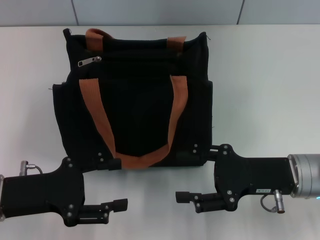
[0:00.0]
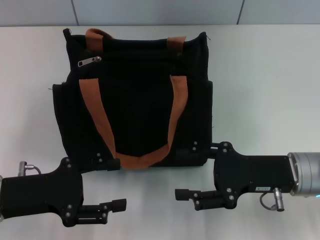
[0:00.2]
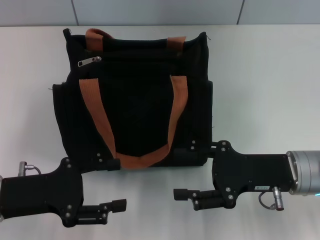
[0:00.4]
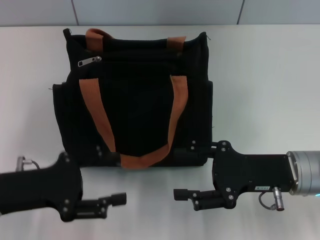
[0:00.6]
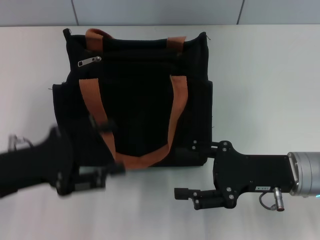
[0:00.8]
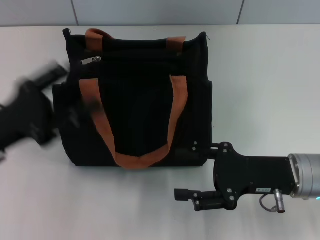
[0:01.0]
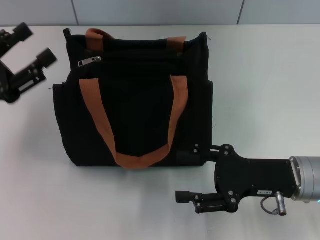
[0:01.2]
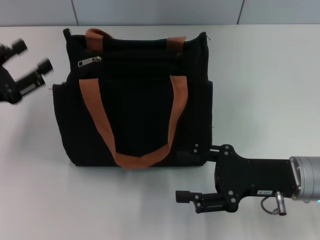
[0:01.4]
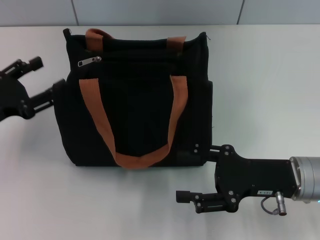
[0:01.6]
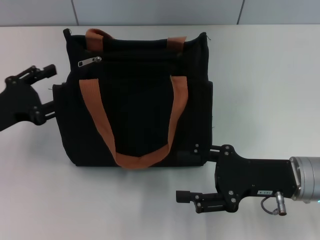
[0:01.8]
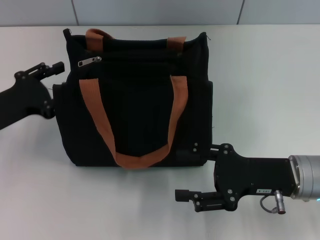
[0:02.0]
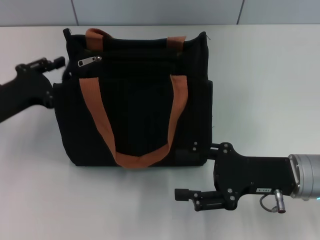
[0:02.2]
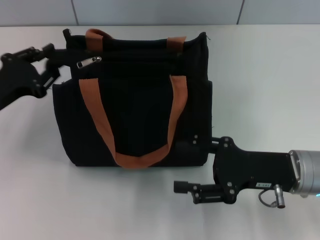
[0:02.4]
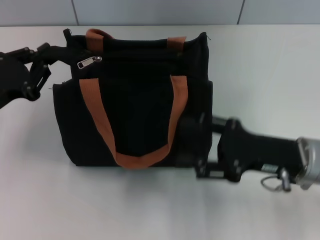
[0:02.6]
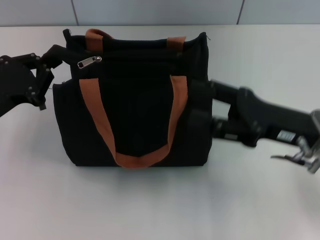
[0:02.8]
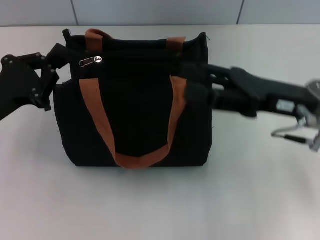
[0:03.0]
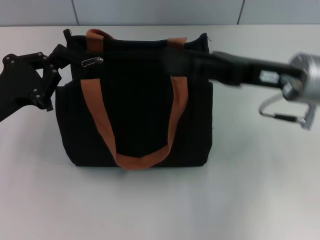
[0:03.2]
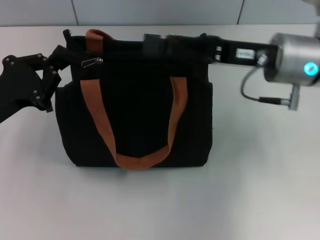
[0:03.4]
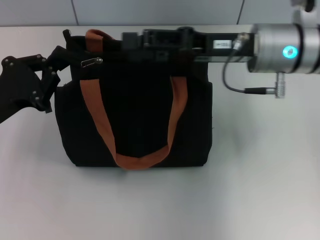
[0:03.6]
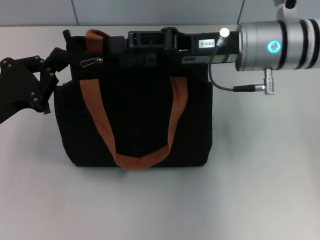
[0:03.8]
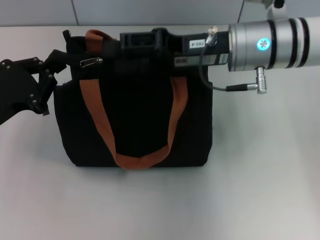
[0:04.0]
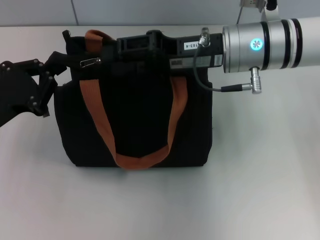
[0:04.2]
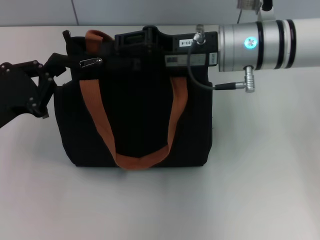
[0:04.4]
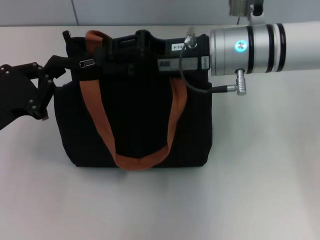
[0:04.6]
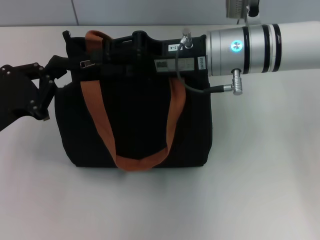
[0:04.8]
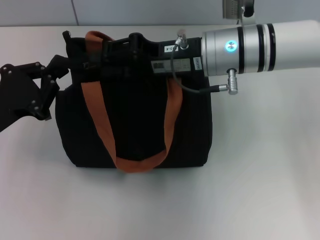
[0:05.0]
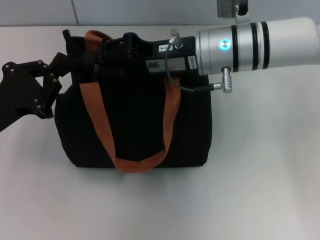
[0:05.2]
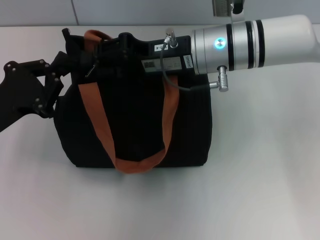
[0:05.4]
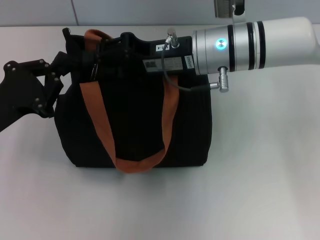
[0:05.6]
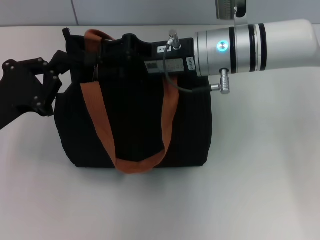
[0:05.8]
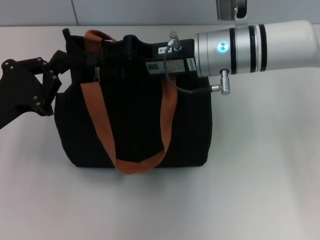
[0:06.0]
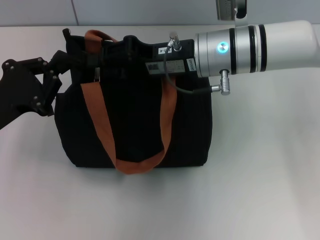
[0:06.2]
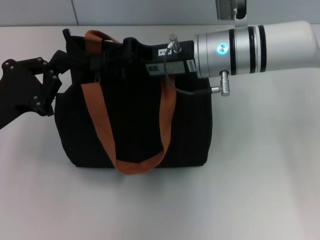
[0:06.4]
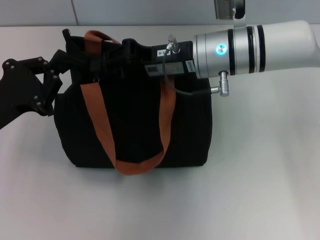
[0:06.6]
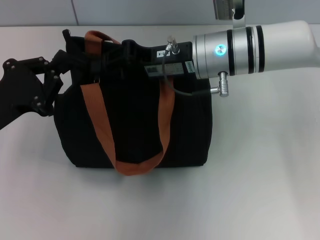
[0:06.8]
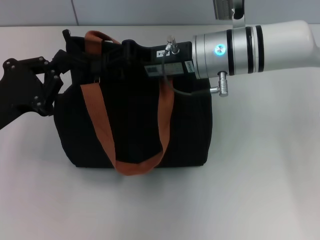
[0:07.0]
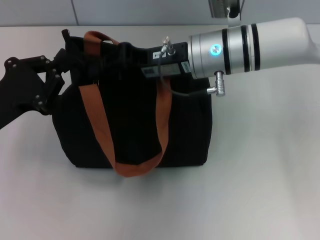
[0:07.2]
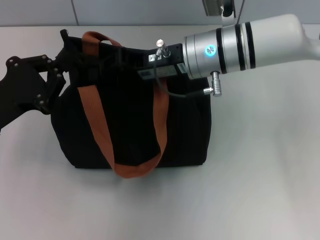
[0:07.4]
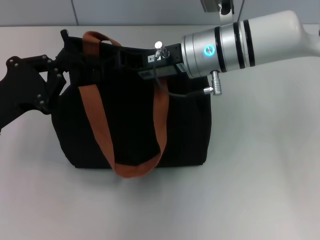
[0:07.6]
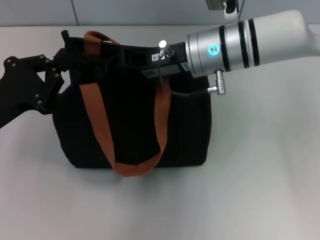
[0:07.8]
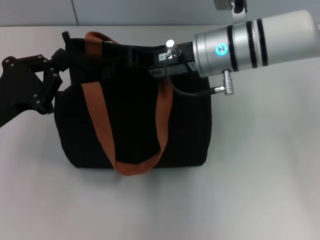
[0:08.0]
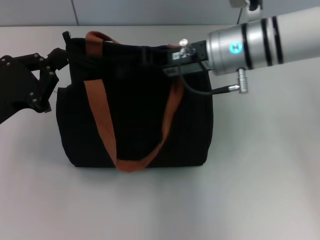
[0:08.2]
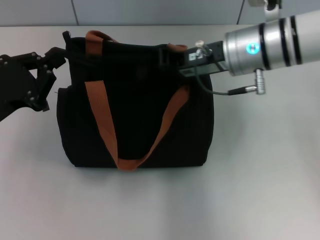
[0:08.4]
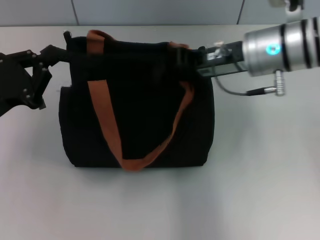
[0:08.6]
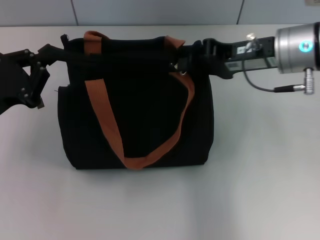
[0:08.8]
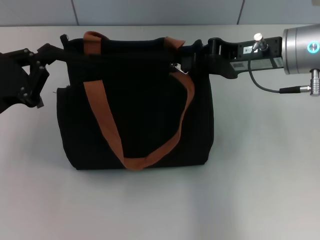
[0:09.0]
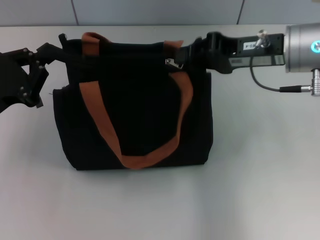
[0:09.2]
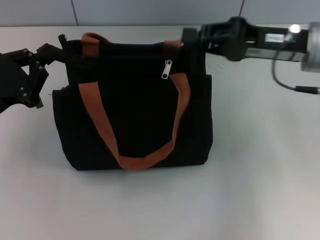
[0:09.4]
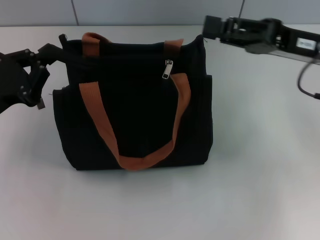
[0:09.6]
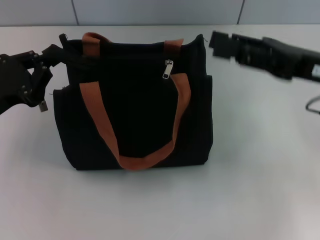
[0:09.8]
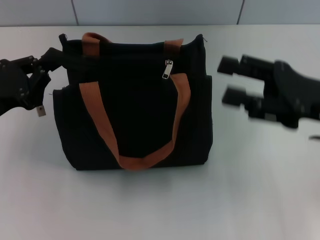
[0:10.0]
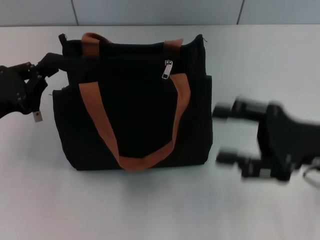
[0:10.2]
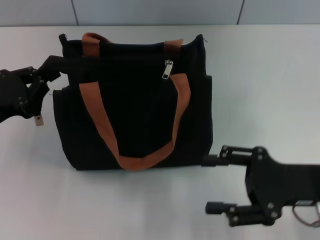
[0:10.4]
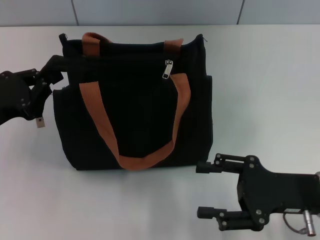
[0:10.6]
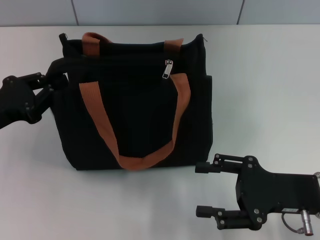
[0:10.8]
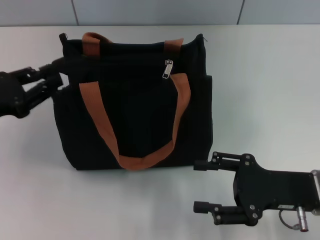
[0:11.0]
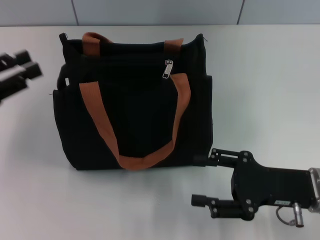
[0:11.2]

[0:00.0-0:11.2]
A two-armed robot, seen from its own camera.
Step, 0:00.0 to 0:09.6: Pull up the zipper with your right hand.
Step, 0:09.8 to 0:11.0: Grab the zipper with your left hand.
0:00.0 to 0:01.6: The left gripper shifts approximately 10 cm forward and to the left.
0:01.6 to 0:03.2: The left gripper closes up. The right gripper shifts about 10 cm upward and forward.
0:03.2 to 0:04.8: The right gripper goes some 10 cm to the left and forward, and closes its fingers.
0:04.8 to 0:06.4: There are only small adjustments of the grippers.
0:06.4 to 0:08.0: The right gripper closes up.
0:08.0 to 0:09.6: The right gripper is displaced to the right by roughly 15 cm.
0:09.6 to 0:11.2: The left gripper shifts by some 5 cm, and opens, while the right gripper travels downward and backward by approximately 15 cm, and opens.

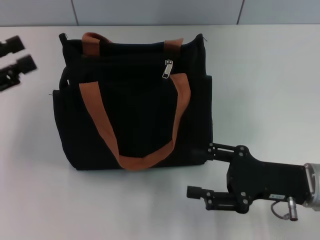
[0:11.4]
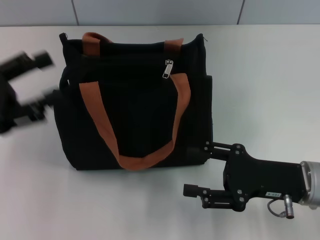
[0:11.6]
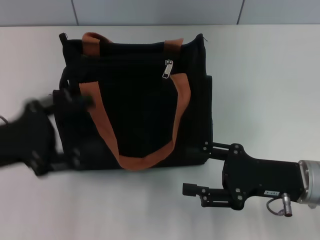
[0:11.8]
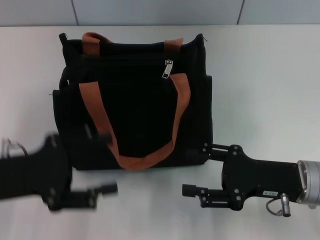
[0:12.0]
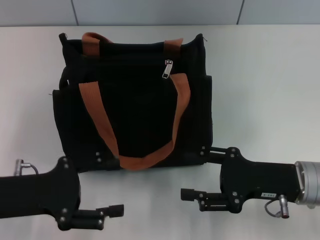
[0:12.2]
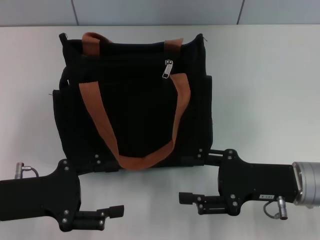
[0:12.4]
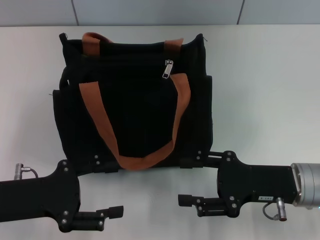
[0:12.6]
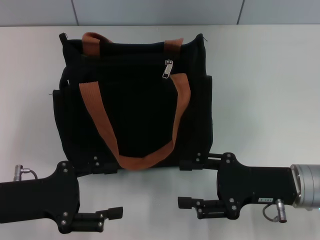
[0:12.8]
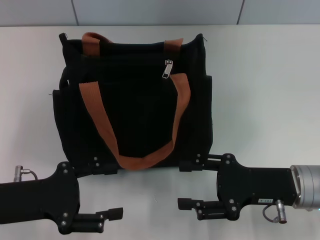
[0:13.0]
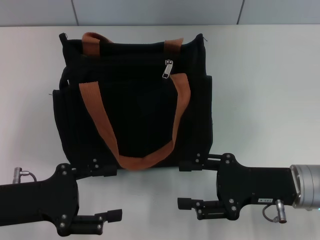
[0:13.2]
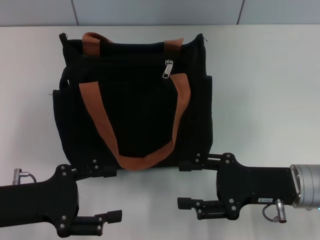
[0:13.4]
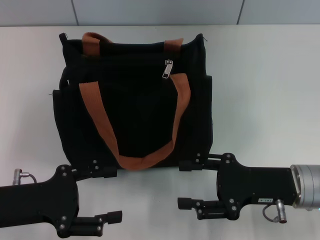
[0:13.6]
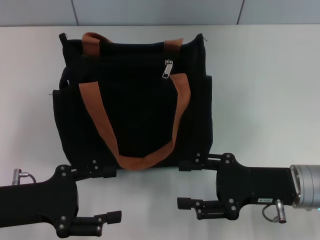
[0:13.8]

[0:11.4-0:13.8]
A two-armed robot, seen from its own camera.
0:11.4 to 0:12.6: The left gripper is displaced to the right, downward and backward by about 10 cm, and opens.
0:12.6 to 0:13.8: Neither gripper changes place.

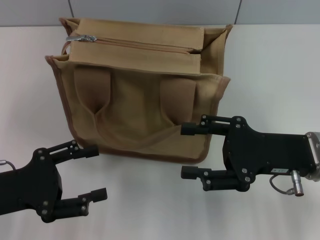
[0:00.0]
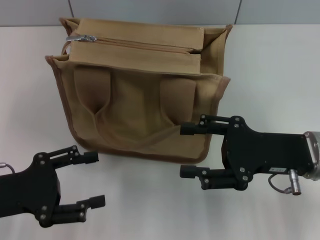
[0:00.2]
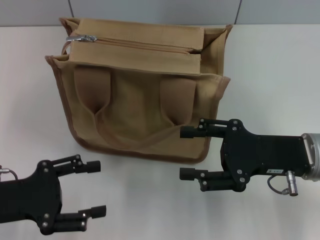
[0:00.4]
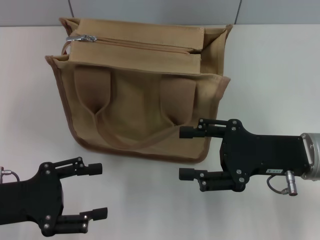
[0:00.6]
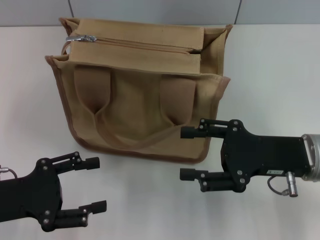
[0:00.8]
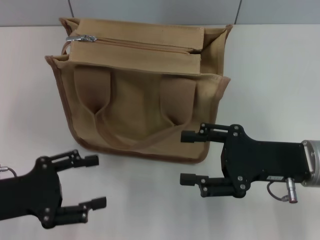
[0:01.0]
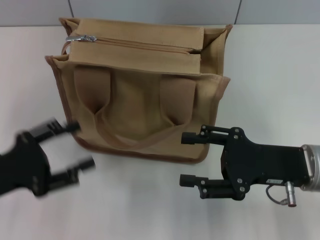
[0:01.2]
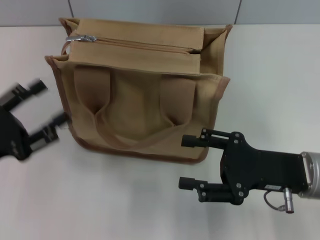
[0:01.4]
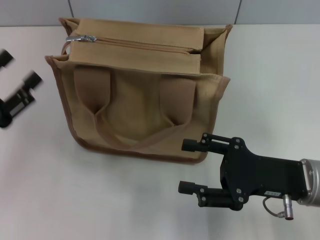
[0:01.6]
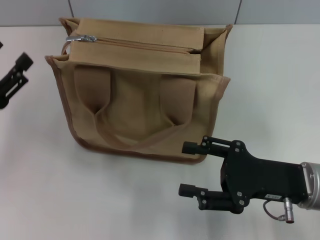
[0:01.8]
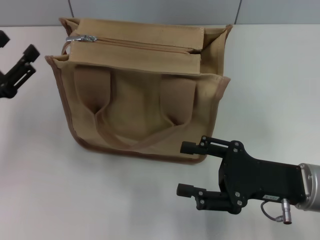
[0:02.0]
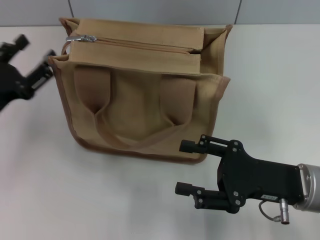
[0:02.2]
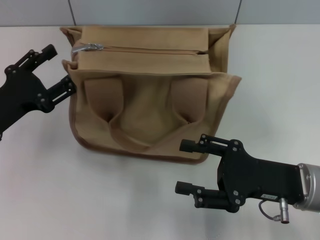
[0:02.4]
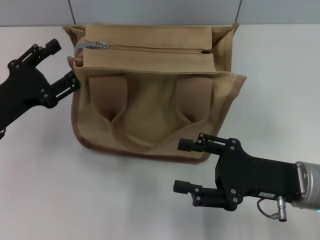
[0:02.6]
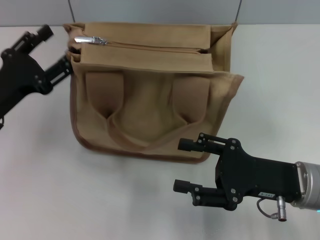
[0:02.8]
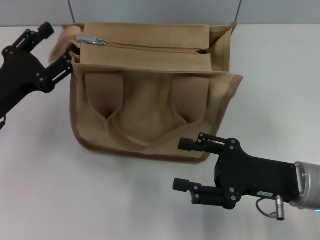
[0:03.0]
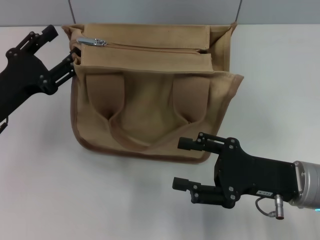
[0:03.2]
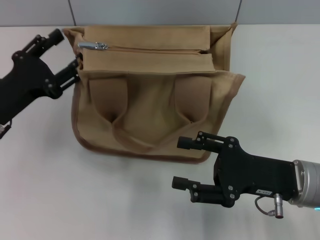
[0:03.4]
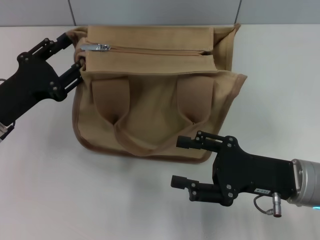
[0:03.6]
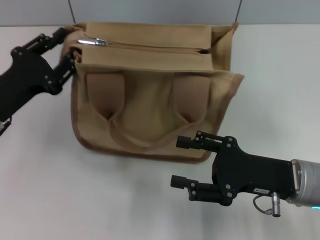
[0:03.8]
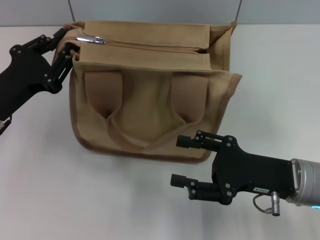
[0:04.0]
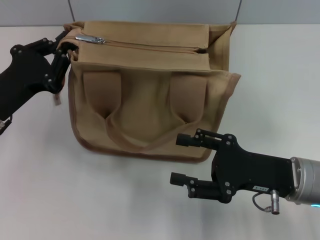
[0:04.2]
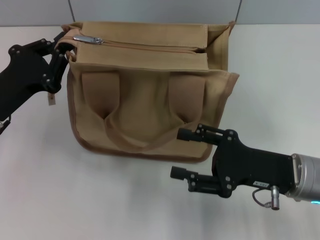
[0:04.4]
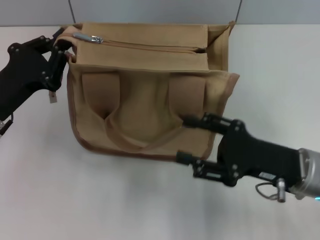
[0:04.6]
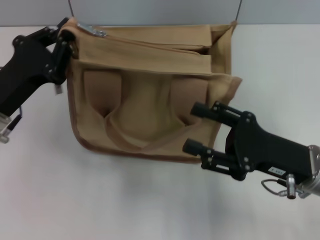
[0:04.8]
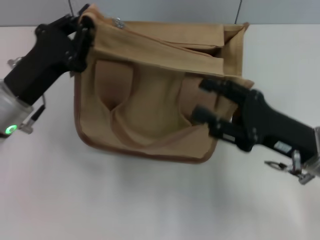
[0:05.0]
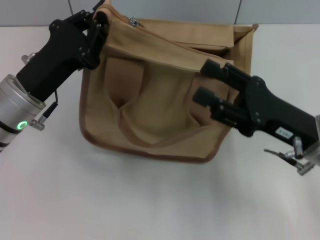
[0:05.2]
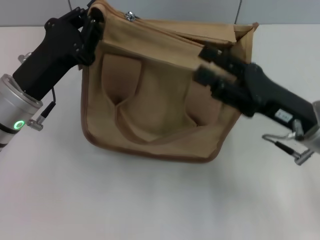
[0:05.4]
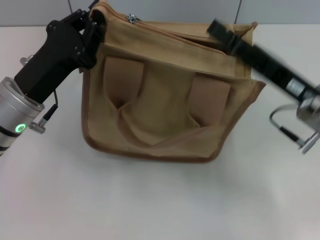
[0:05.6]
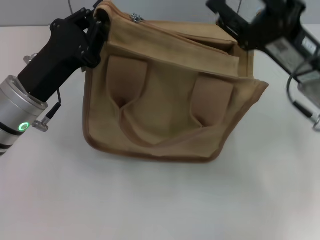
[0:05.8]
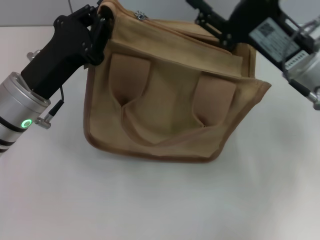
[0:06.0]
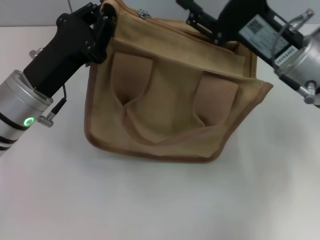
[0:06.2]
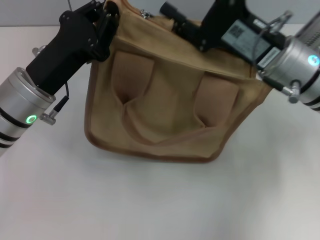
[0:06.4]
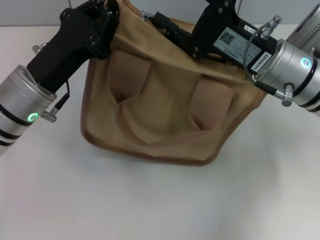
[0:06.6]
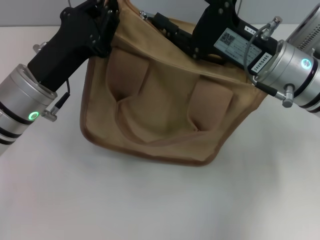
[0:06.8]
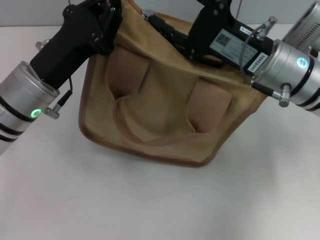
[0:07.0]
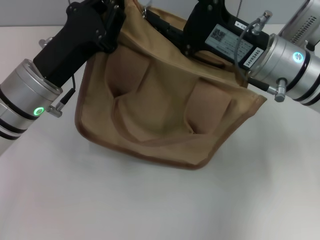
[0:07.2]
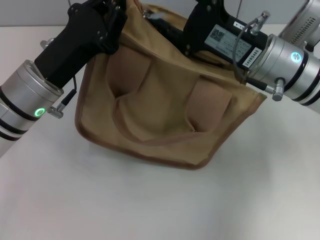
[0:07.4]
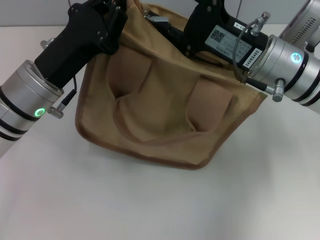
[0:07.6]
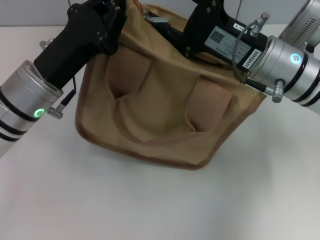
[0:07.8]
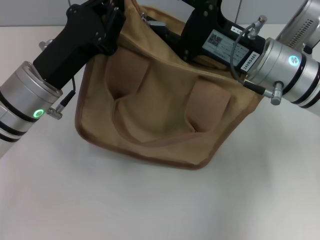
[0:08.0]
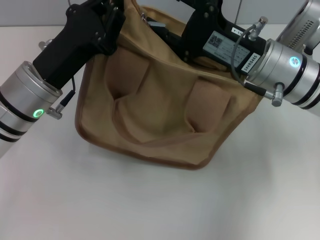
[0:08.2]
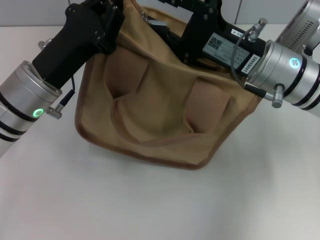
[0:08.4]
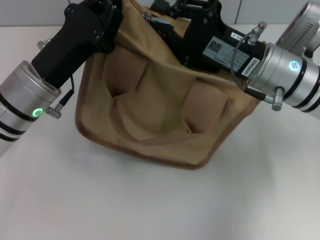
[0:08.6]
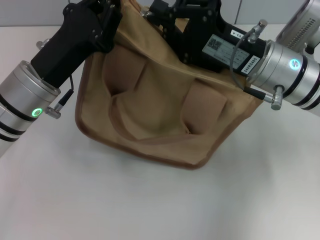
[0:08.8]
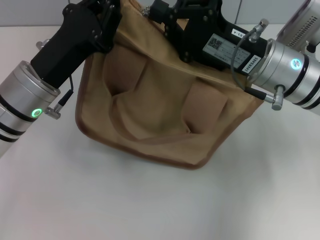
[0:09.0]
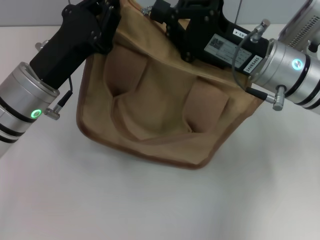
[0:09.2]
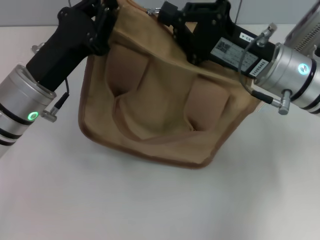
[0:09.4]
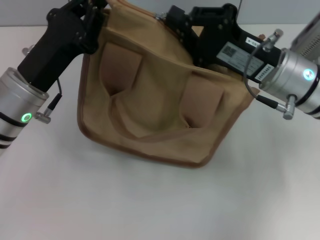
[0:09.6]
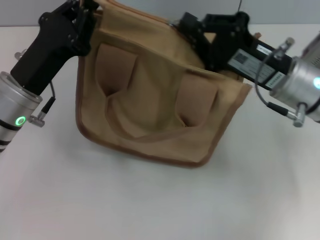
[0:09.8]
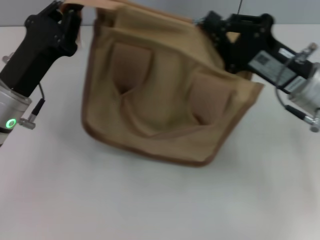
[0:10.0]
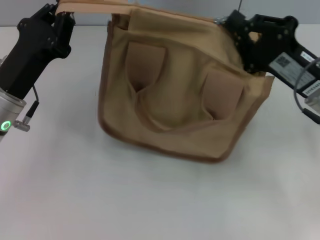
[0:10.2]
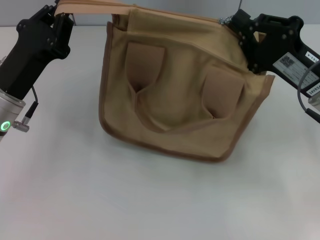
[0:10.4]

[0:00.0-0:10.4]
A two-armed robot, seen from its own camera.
0:01.4 to 0:03.0: The left gripper shifts approximately 5 cm forward.
0:03.0 to 0:04.4: The left gripper closes its fingers.
0:04.4 to 0:06.0: The left gripper heads to the right, covering roughly 5 cm. Meanwhile the right gripper goes about 10 cm forward and upward.
0:07.4 to 0:09.0: The right gripper closes.
0:09.0 to 0:10.4: The right gripper travels to the right by some 10 cm.
